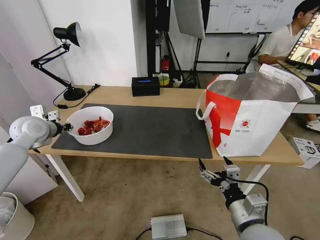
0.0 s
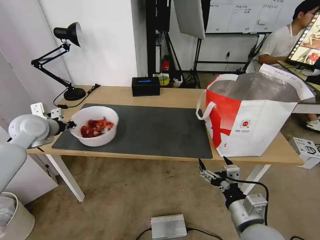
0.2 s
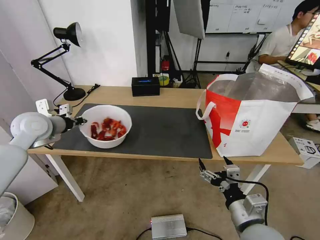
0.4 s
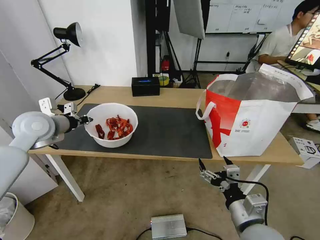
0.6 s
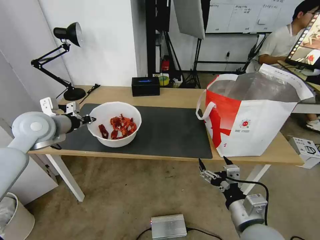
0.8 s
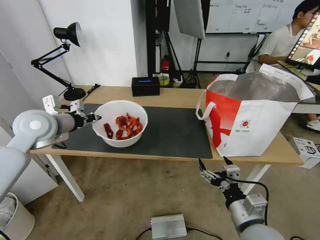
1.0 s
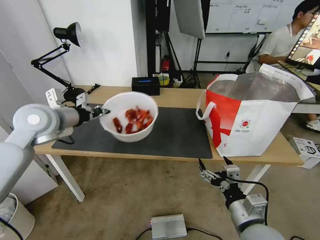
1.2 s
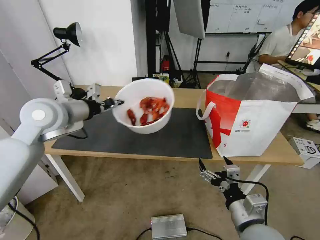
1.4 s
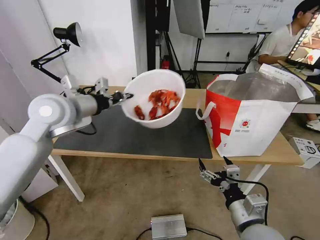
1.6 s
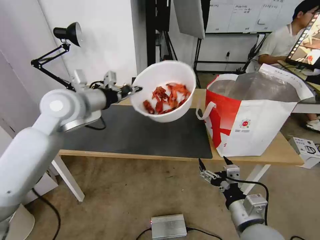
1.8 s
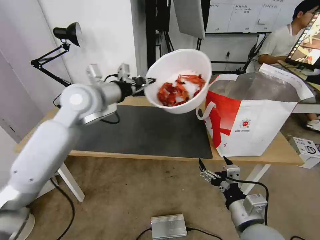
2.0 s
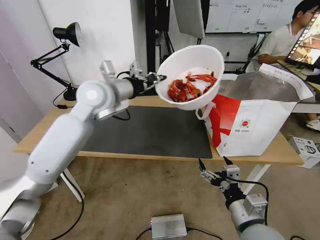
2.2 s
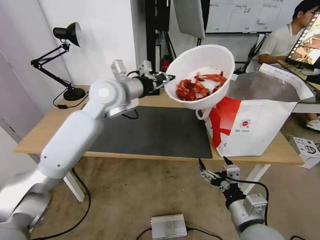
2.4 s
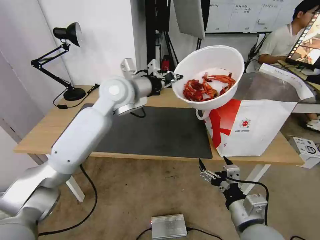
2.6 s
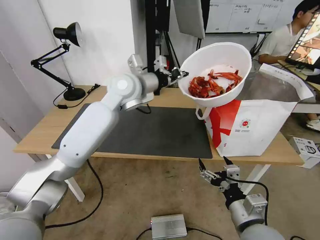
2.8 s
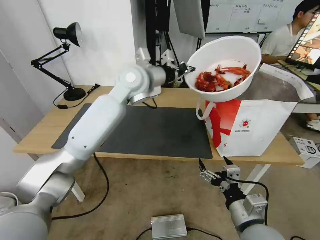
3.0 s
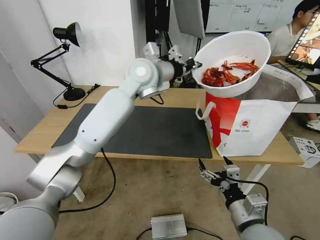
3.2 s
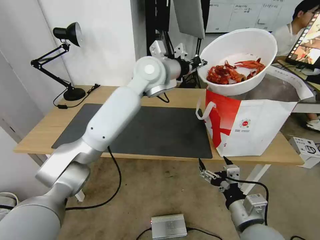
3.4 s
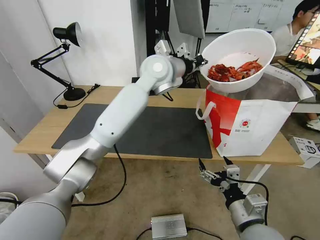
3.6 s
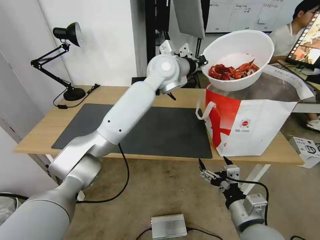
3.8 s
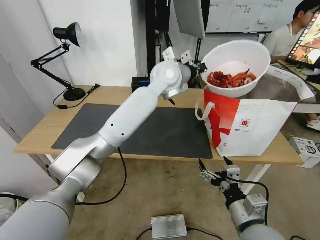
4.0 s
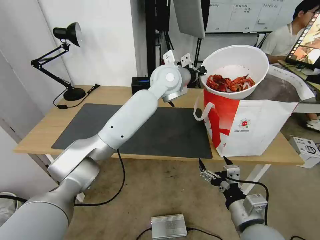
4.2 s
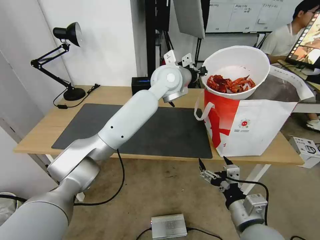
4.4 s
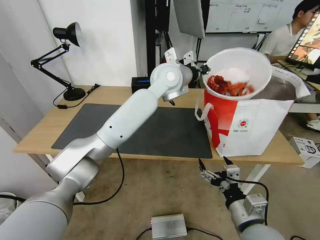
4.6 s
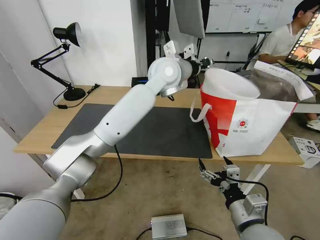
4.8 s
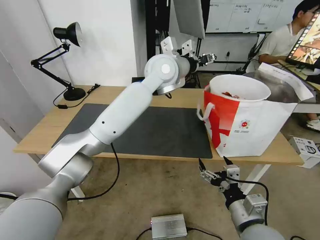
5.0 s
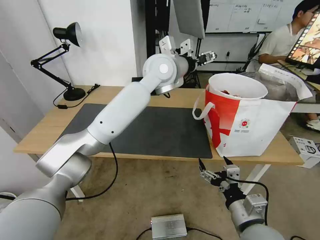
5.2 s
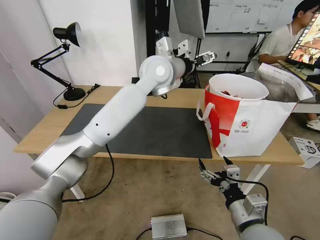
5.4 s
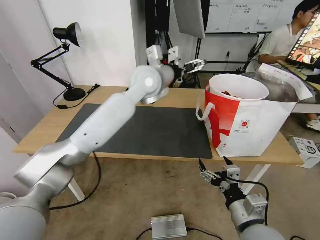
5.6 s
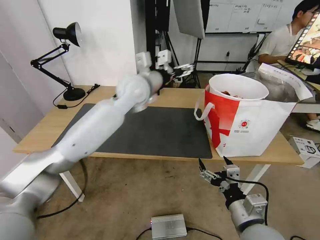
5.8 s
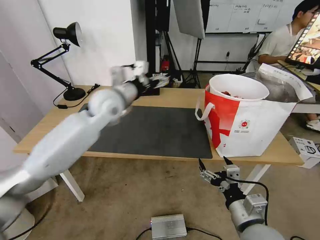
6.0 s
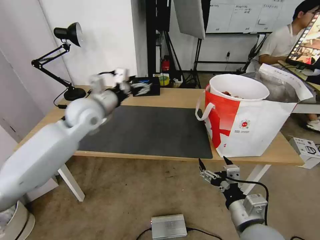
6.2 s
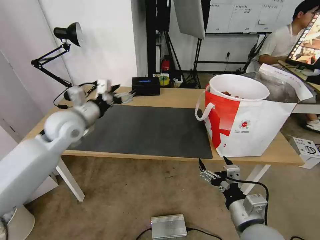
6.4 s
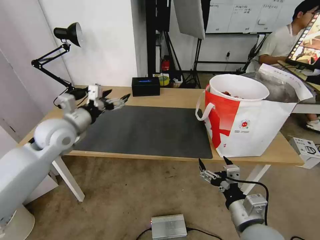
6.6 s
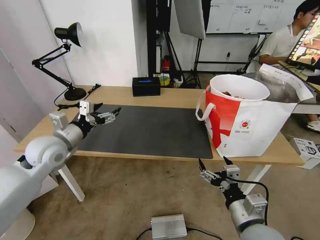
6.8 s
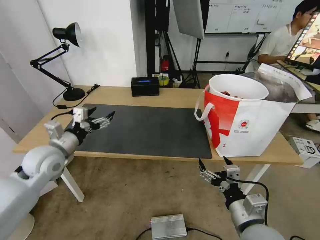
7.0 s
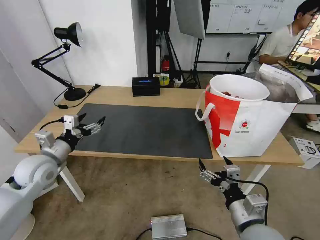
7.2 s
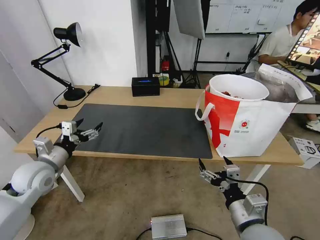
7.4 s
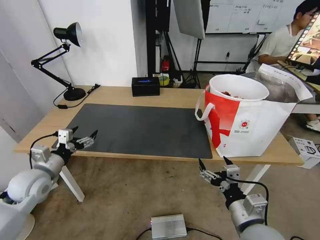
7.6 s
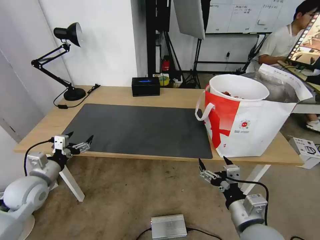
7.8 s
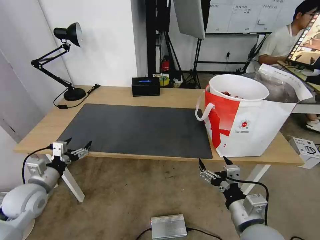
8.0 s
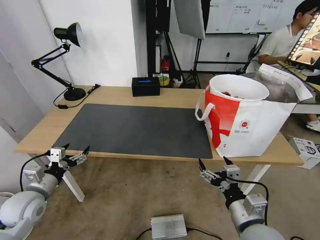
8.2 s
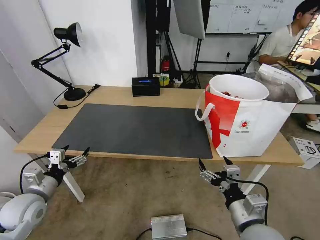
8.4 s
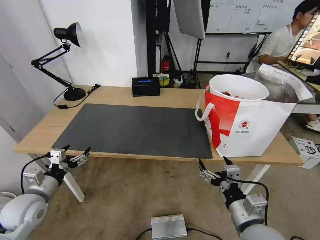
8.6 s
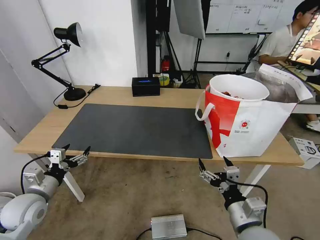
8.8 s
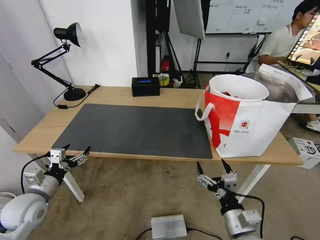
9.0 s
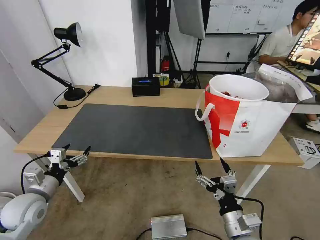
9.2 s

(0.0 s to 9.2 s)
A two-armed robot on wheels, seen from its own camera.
Task of the whole recording: Pick up the trash from the table and place it into the takeout bag.
0.0 s - 1.6 s: The left gripper heads to the right and upward, covering some 20 cm.
1.6 s - 3.0 s: The left gripper is displaced to the right and forward by approximately 20 cm.
3.0 s - 4.6 s: The left gripper heads to the right, covering approximately 10 cm.
4.6 s - 6.2 s: The left gripper moves to the left, approximately 25 cm, and opens its fingers.
6.2 s - 7.6 s: The left gripper moves to the left, downward and backward, approximately 25 cm.
7.6 s - 9.2 s: The left gripper goes some 5 cm backward. The right gripper moves downward, approximately 5 cm.

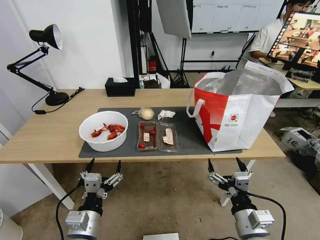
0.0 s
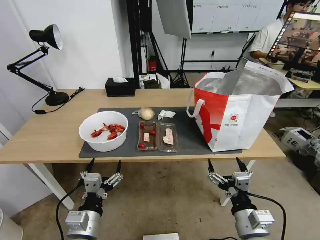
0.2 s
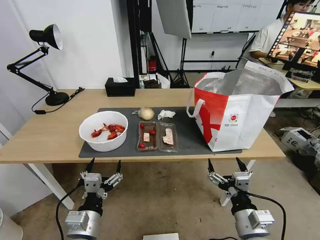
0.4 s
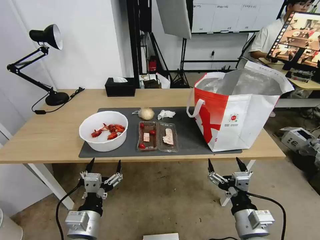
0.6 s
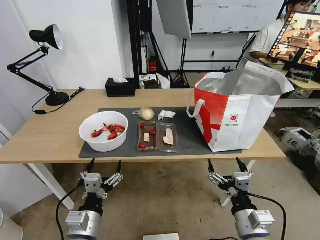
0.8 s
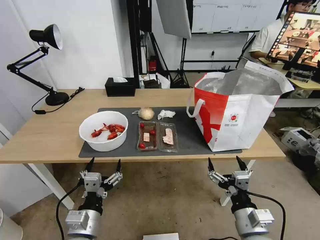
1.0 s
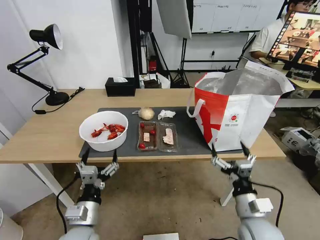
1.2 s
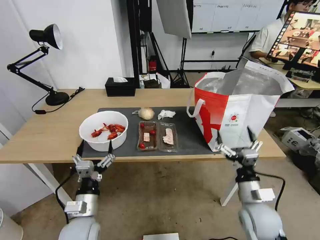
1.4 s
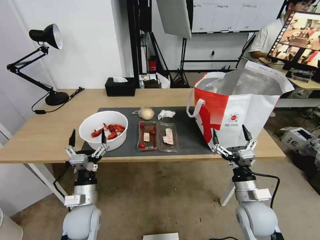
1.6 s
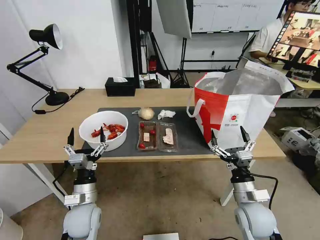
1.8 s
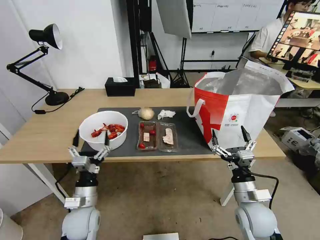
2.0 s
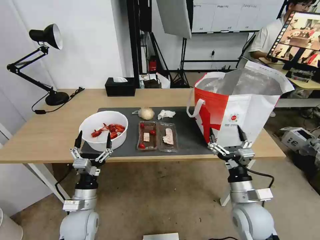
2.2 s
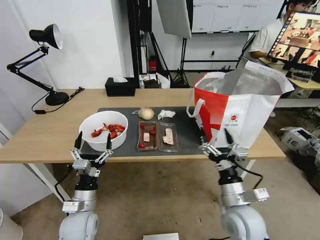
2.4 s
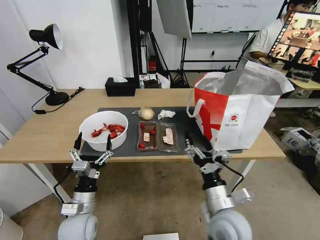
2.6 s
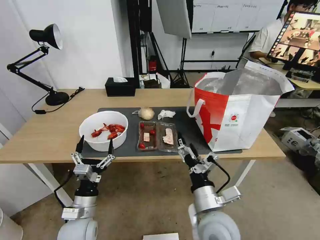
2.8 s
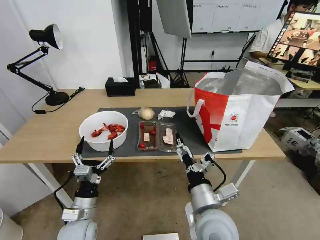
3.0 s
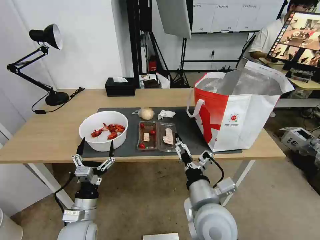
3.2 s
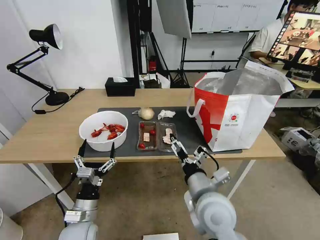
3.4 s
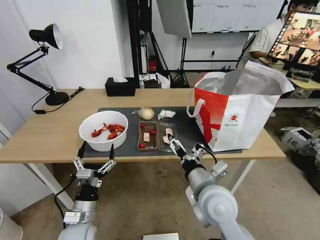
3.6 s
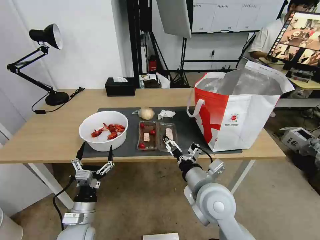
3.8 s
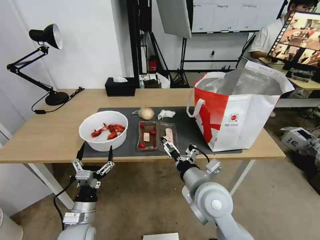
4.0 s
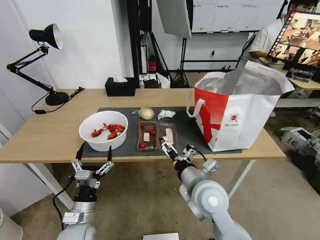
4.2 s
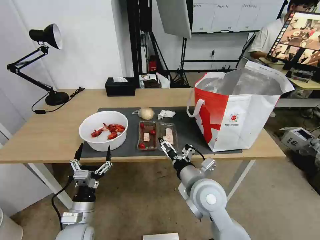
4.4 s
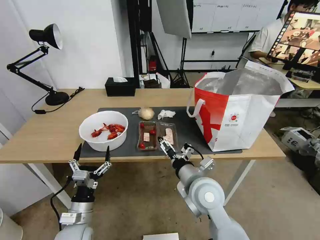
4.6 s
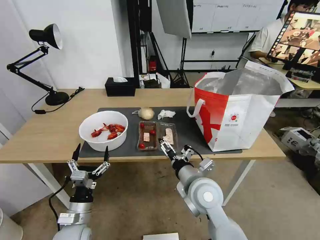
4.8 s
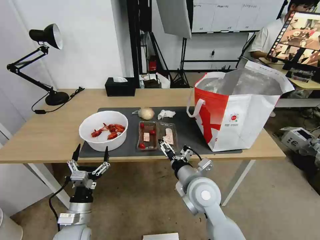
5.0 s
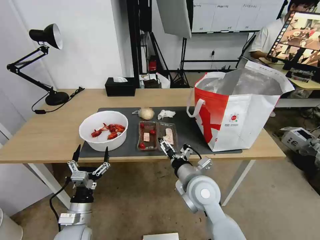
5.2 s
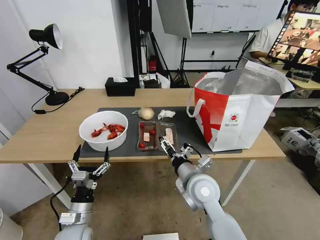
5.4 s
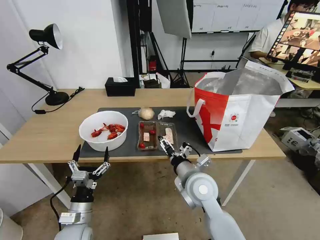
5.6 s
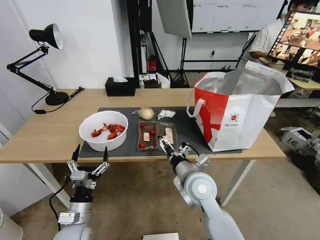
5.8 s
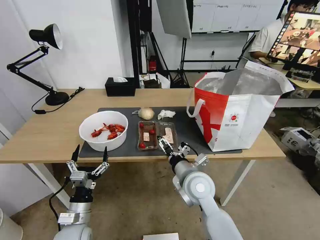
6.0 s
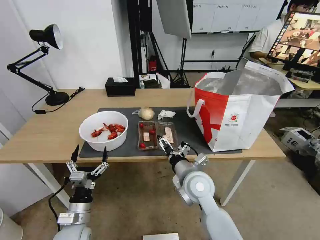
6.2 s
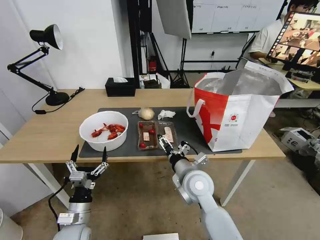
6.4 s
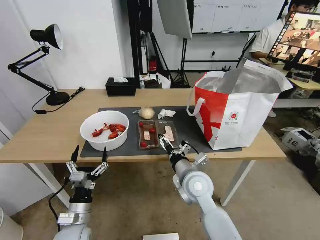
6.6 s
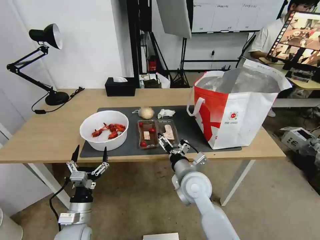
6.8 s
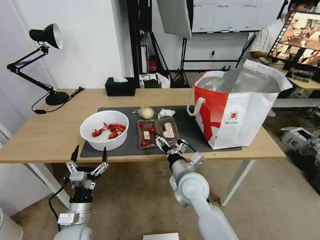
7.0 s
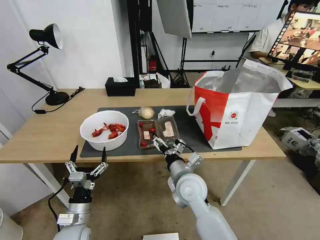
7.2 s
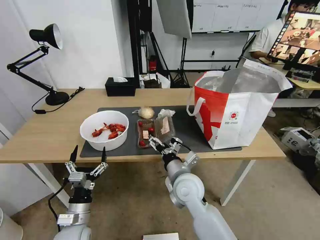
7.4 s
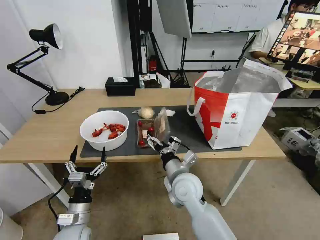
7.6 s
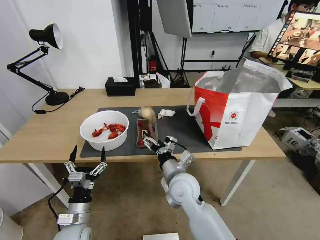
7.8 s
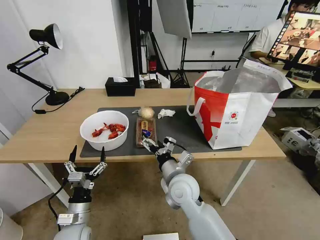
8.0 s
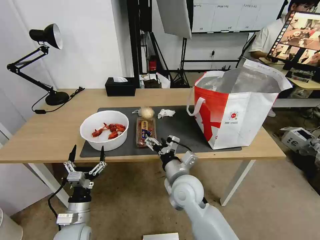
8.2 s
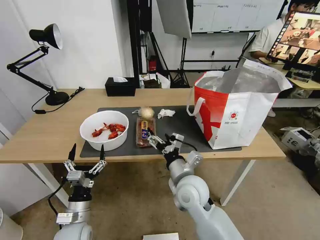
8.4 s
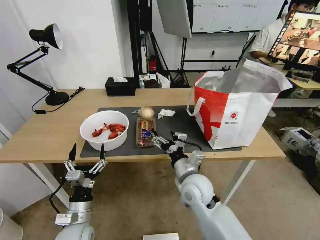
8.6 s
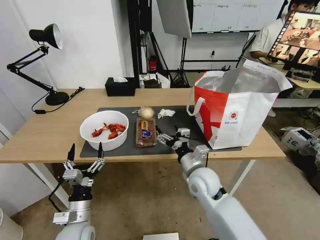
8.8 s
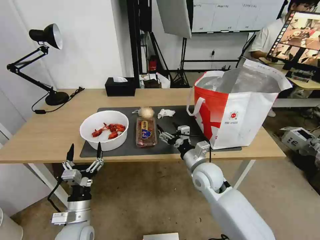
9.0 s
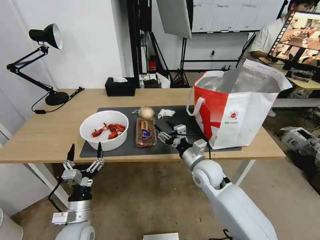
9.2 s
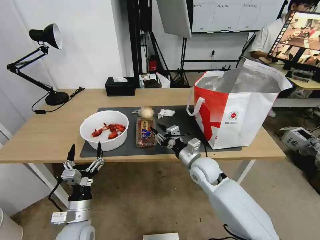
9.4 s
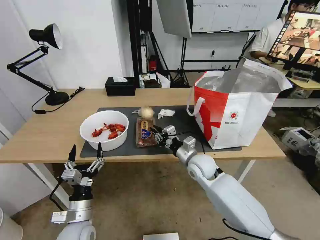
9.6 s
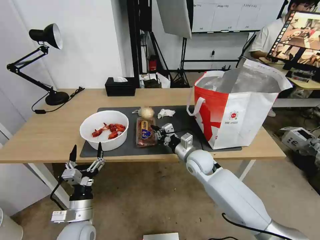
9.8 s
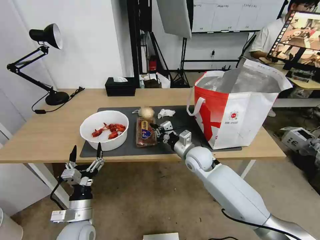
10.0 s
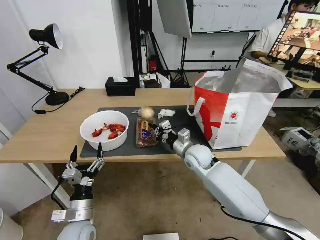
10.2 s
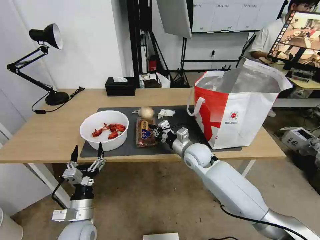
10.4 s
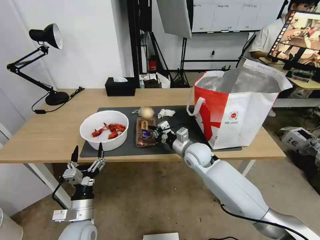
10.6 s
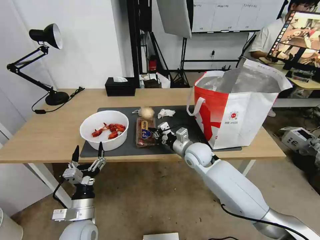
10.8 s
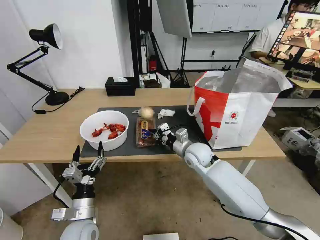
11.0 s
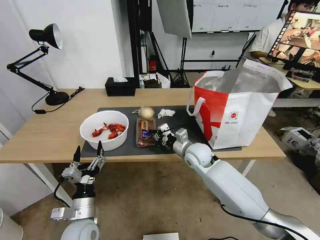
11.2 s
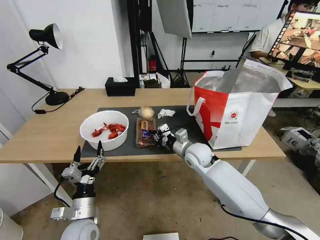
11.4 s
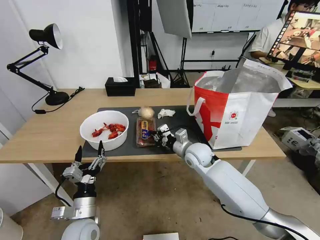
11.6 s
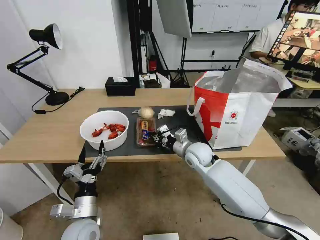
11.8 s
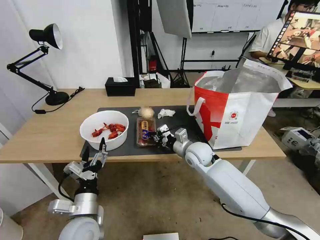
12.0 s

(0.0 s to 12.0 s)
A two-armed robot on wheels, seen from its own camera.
Task of the whole recording: Pick up the trash from the table and place it into the takeout bag.
1.6 s - 3.0 s: The right gripper heads to the left and upward, covering approximately 15 cm.
3.0 s - 4.4 s: The right gripper travels forward by some 10 cm.
4.4 s - 6.0 s: The grippers make only small movements.
7.6 s - 9.0 s: The right gripper shifts some 10 cm to the right.
9.0 s - 10.4 s: The right gripper heads forward, covering roughly 10 cm, and closes up.
10.4 s - 12.0 s: The left gripper shifts by approximately 5 cm.

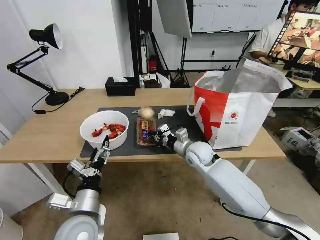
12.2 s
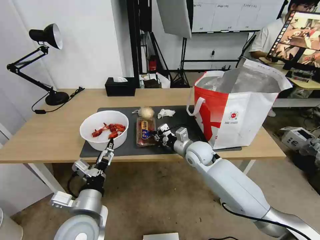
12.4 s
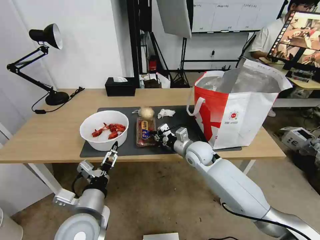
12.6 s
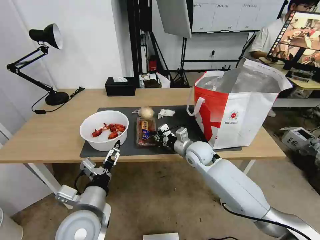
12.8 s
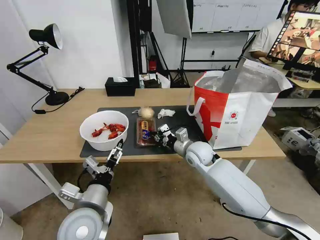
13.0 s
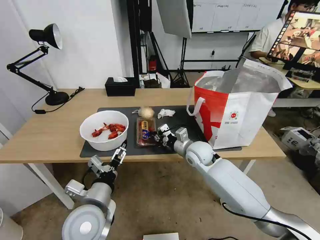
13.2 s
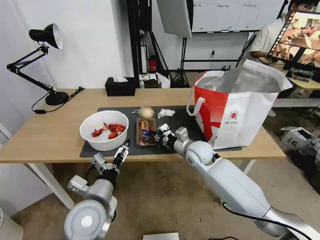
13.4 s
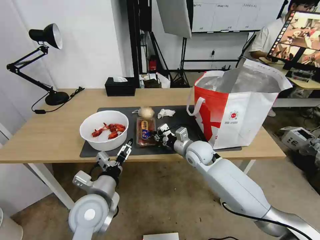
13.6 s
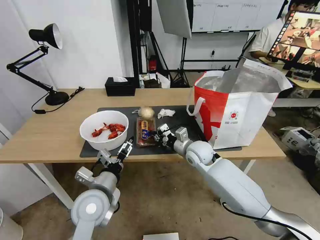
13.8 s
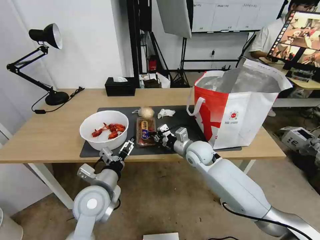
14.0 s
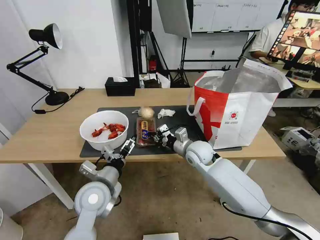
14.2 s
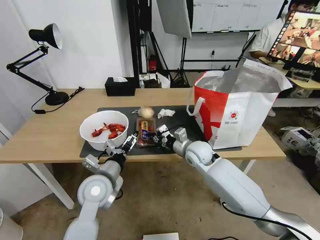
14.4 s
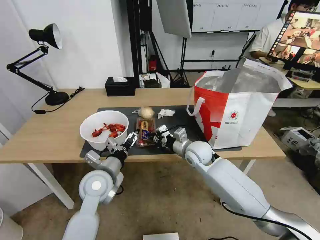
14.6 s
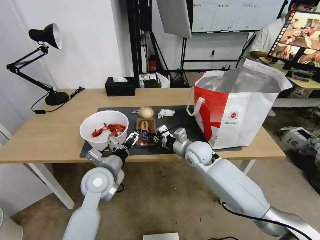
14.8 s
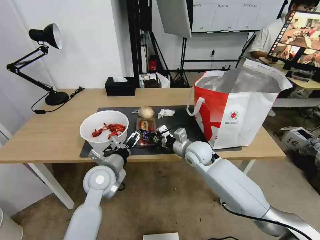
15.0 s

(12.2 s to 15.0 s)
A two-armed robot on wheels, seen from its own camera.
Task of the whole recording: Pick up the trash from the table and place it into the takeout bag.
12.2 s - 13.6 s: The left gripper moves roughly 5 cm.
13.6 s - 15.0 s: The left gripper travels forward by roughly 10 cm.
